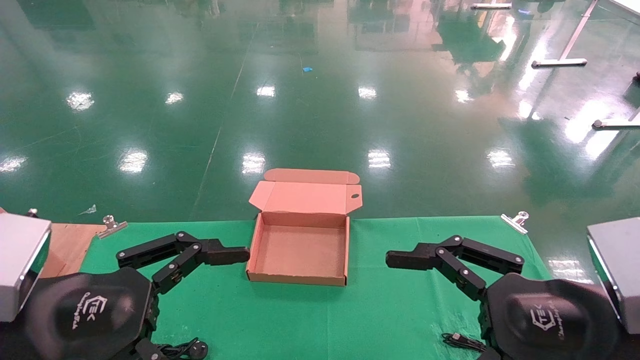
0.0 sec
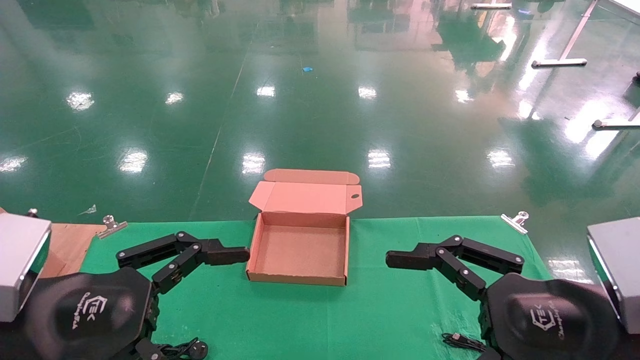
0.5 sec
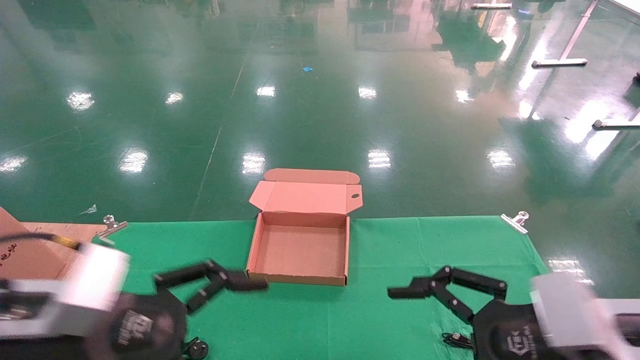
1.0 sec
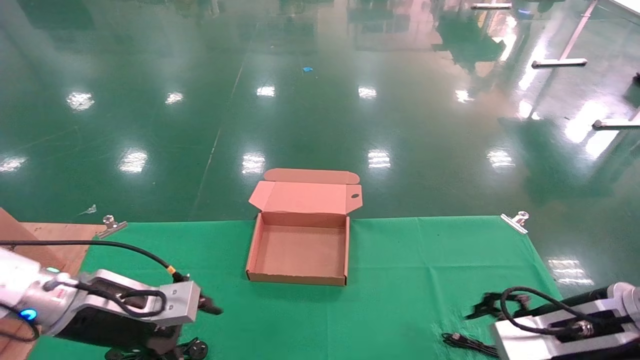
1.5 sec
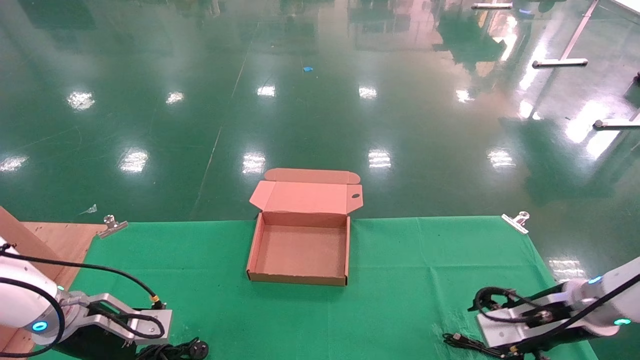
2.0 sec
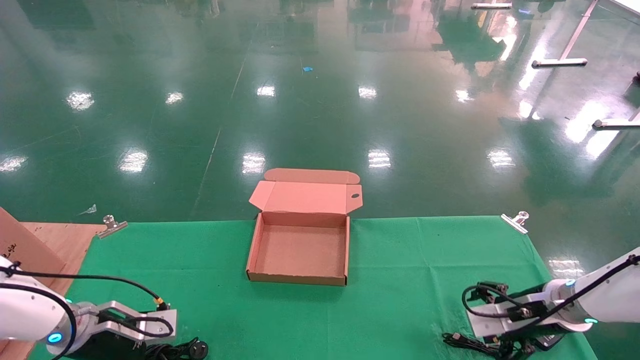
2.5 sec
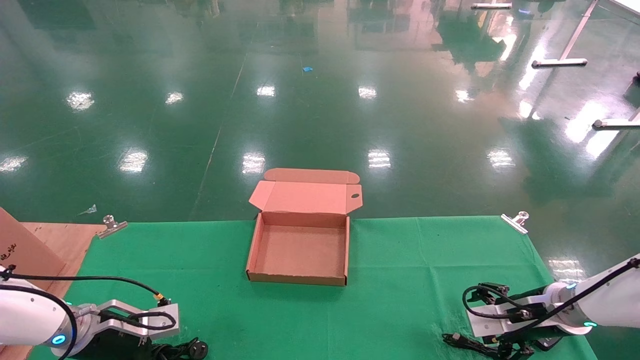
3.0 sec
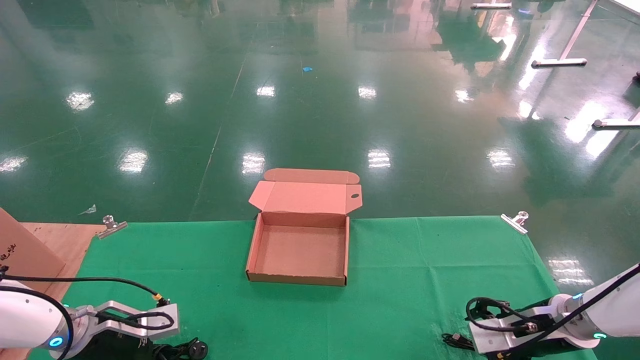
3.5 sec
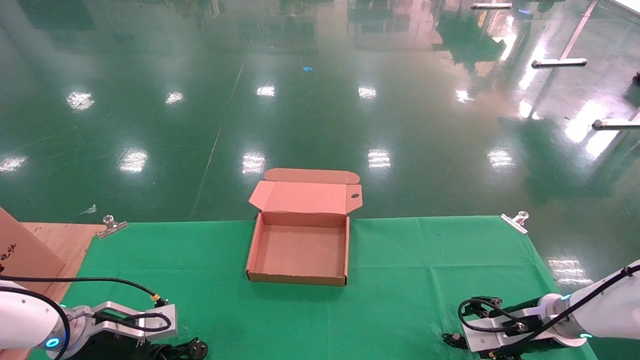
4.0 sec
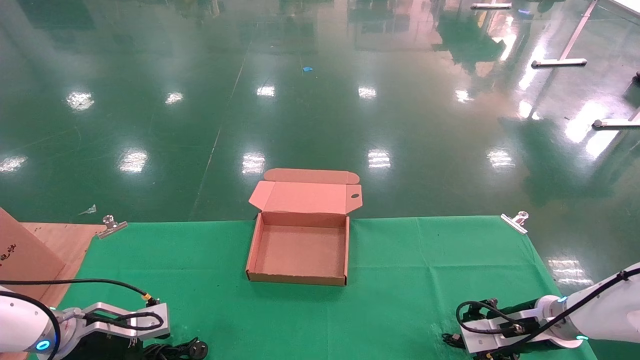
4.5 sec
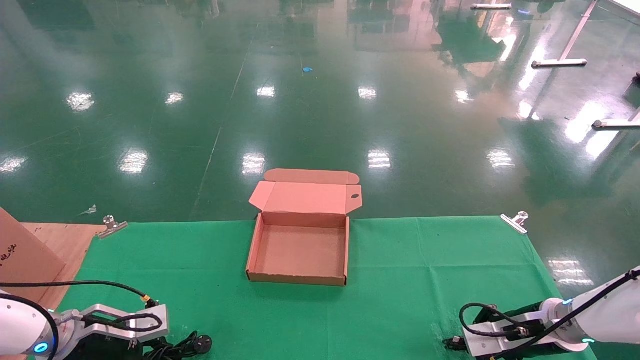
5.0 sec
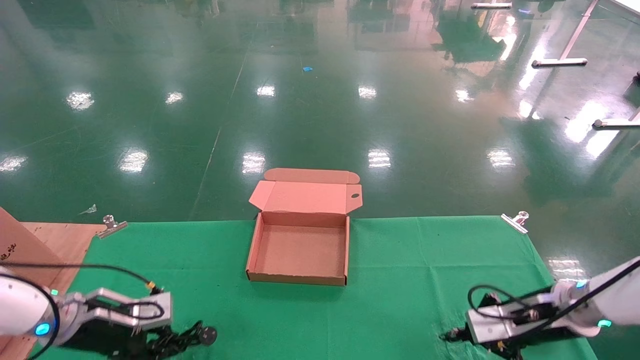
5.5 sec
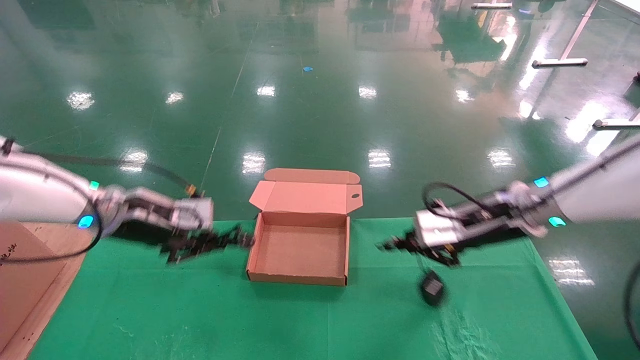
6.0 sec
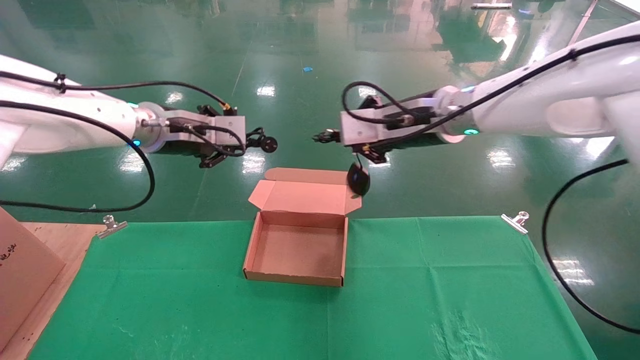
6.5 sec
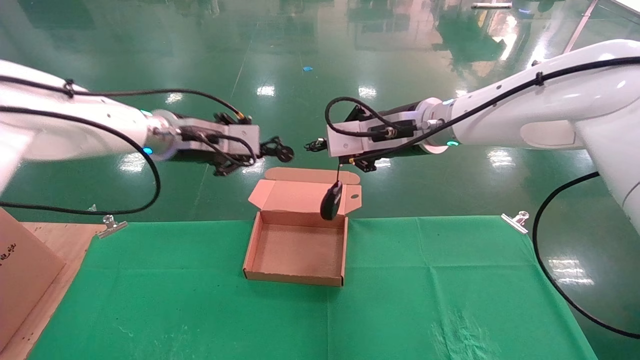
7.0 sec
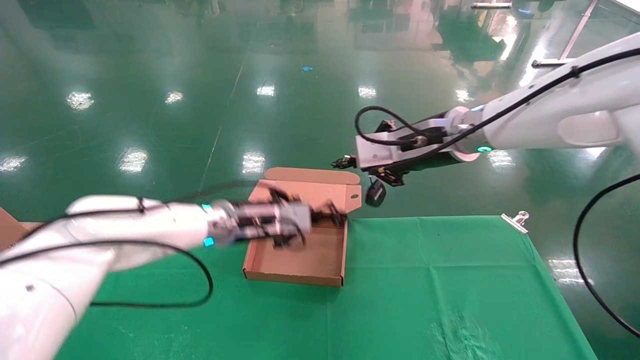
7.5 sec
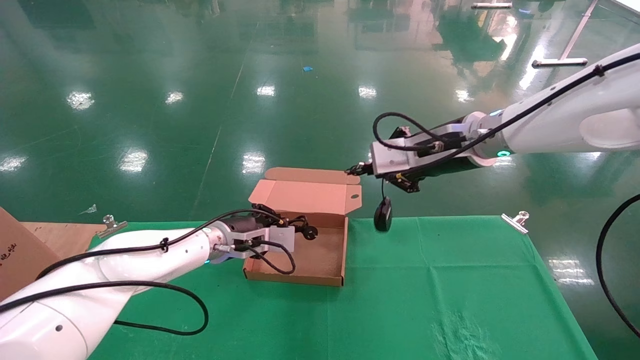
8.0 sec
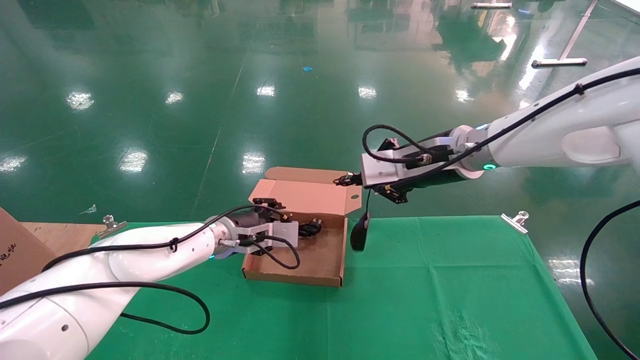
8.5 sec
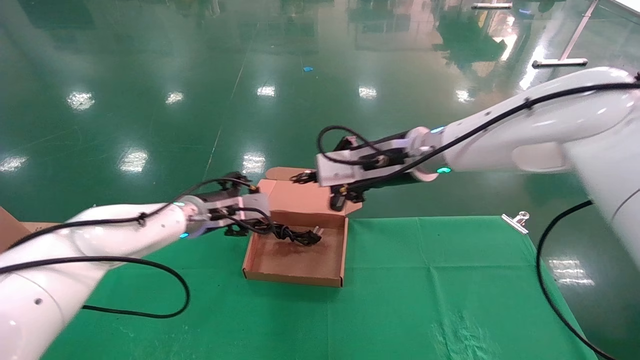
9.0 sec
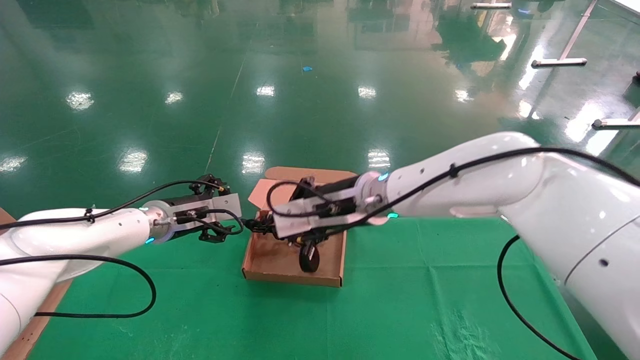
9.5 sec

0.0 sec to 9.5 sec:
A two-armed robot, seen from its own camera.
Step, 1.5 sec to 5.0 sec: Grab and lift both the mouse and power cord from the accessory packaging area at the same time.
0.0 sec to 2.0 sec: The grippers both shift forward and downward by about 25 cm.
2.0 sec to 4.0 sec: The right gripper travels downward by some 5 cm; the left gripper moves approximately 5 cm.
4.0 sec to 5.5 sec: The left gripper closes its fingers; the right gripper is displaced upward by about 5 cm, and closes.
5.5 sec to 7.5 sec: The left gripper heads to the right, upward and forward, covering about 25 cm; the right gripper goes some 30 cm upward and to the left.
7.5 sec to 9.5 sec: The right gripper shifts roughly 15 cm to the left and downward, while the left gripper heads to the left, covering about 10 cm, and opens.

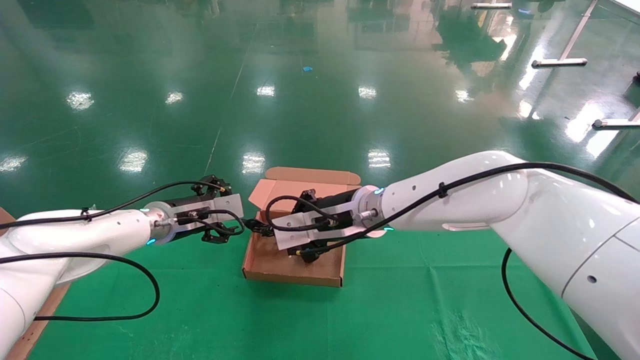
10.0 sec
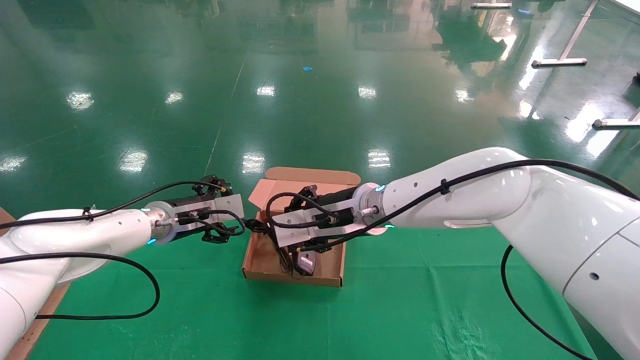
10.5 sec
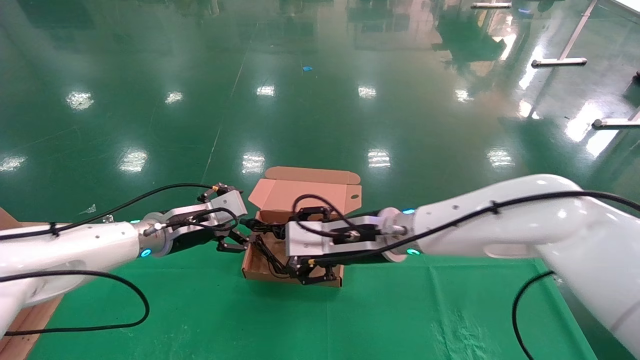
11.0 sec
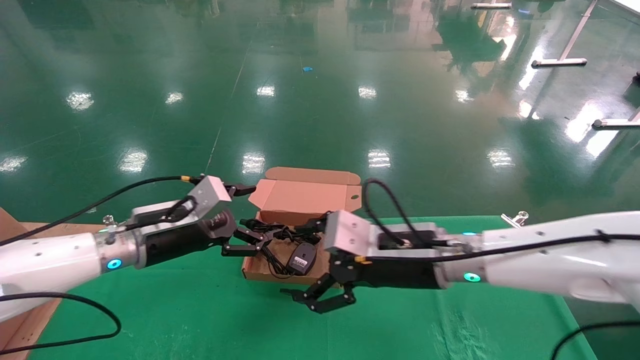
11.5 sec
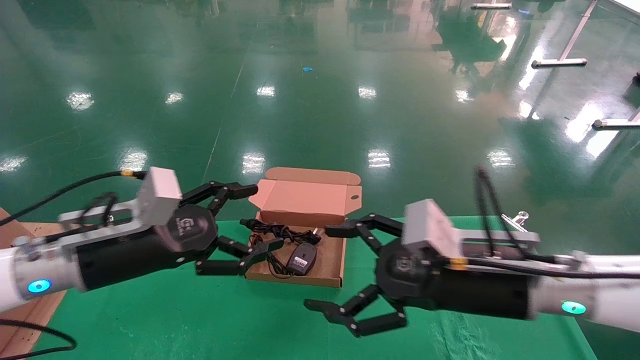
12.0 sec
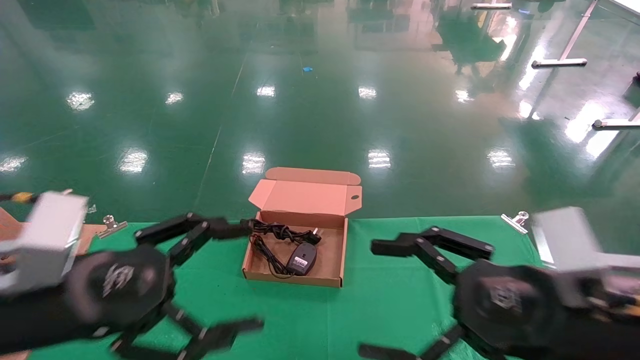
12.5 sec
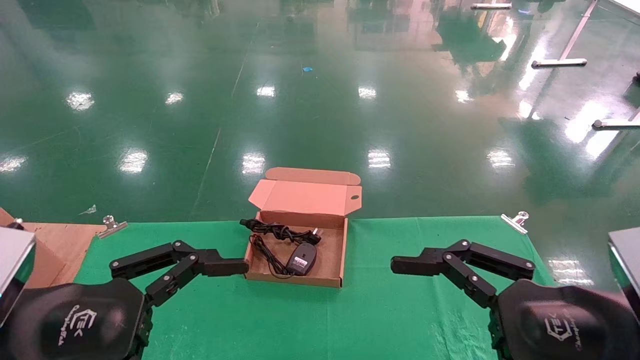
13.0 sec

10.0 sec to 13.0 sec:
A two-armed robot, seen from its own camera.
10.0 sec to 11.5 sec: The left gripper goes approximately 10 cm backward. Meanwhile the right gripper moves to the right and backward, roughly 10 cm, and opens its fingers.
11.5 sec to 13.0 sec: The right gripper travels backward and to the right by roughly 25 cm. Meanwhile the left gripper goes approximately 25 cm backward.
